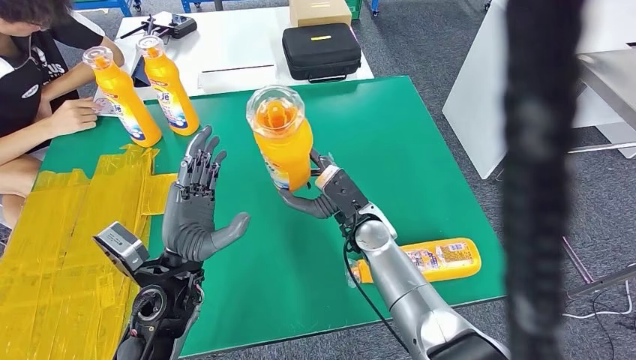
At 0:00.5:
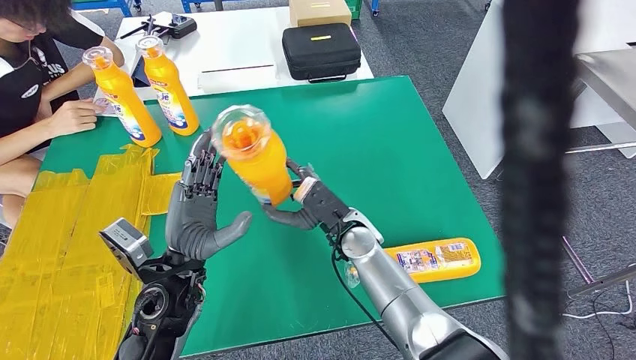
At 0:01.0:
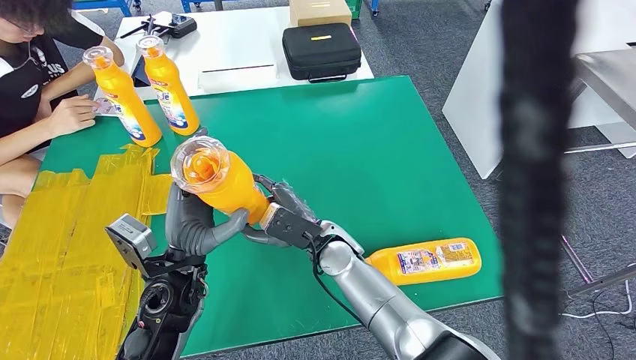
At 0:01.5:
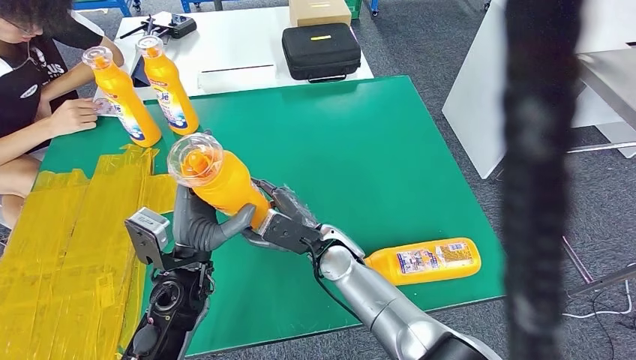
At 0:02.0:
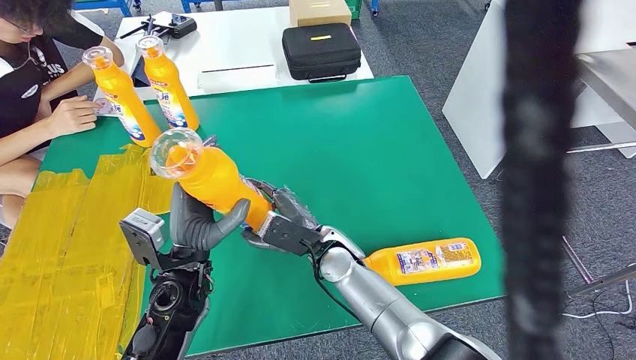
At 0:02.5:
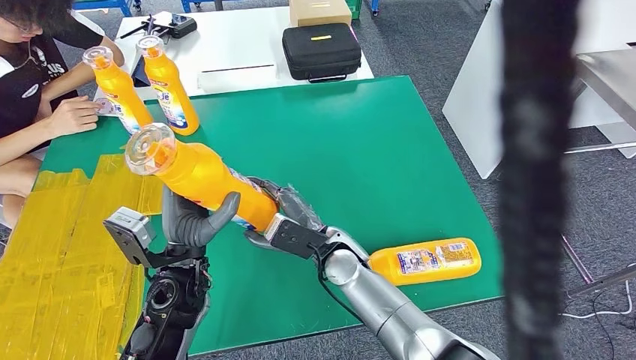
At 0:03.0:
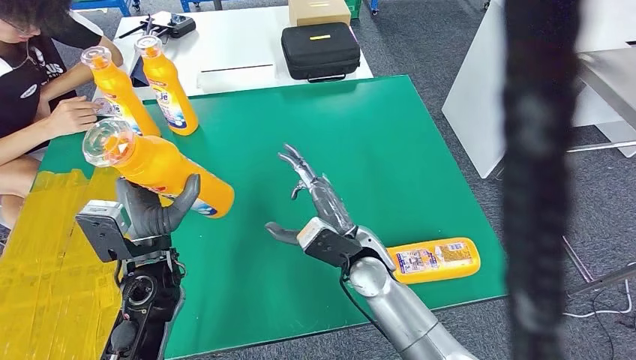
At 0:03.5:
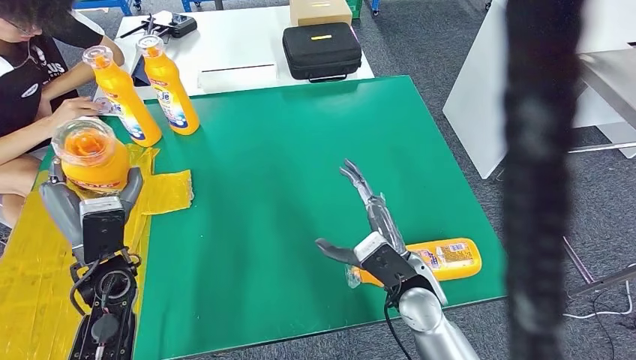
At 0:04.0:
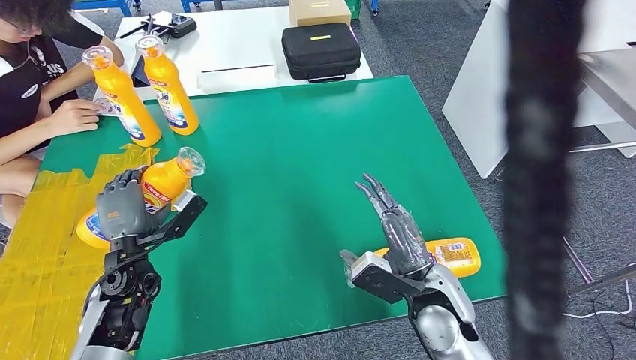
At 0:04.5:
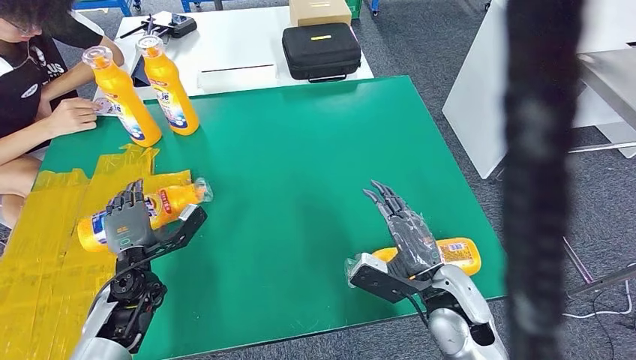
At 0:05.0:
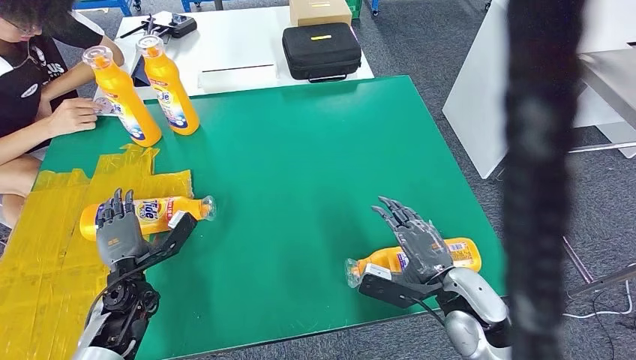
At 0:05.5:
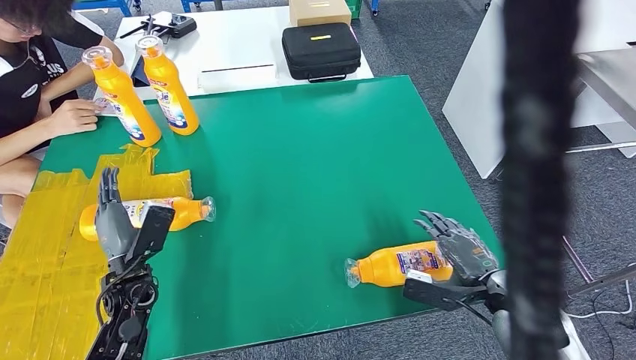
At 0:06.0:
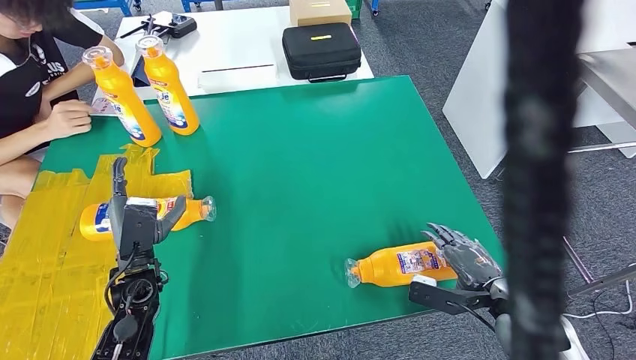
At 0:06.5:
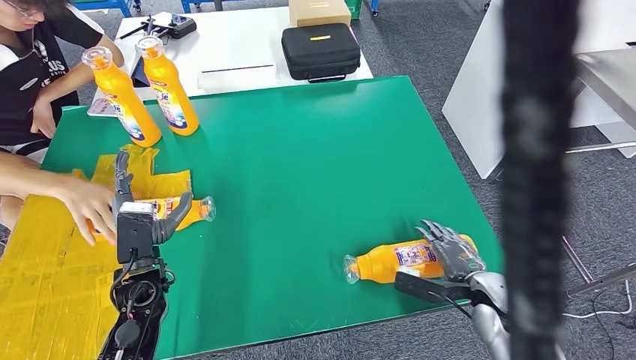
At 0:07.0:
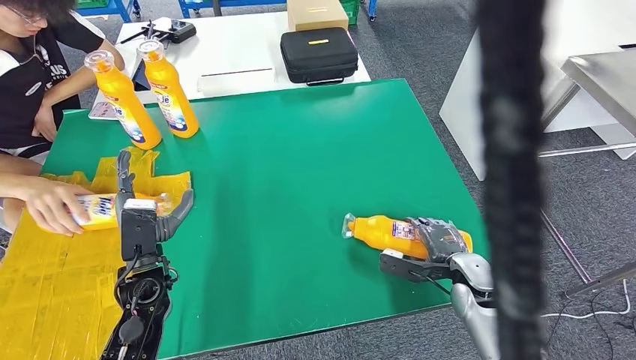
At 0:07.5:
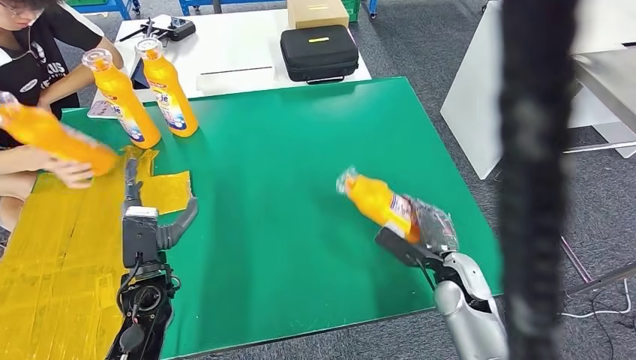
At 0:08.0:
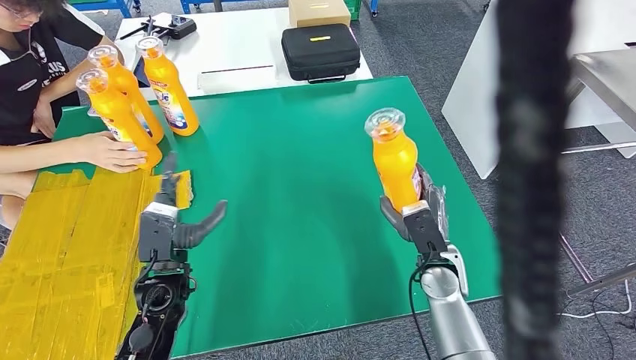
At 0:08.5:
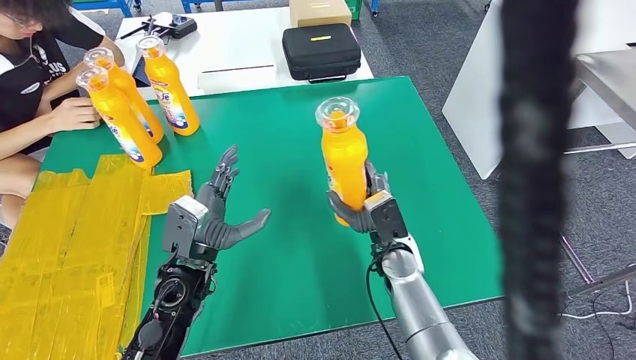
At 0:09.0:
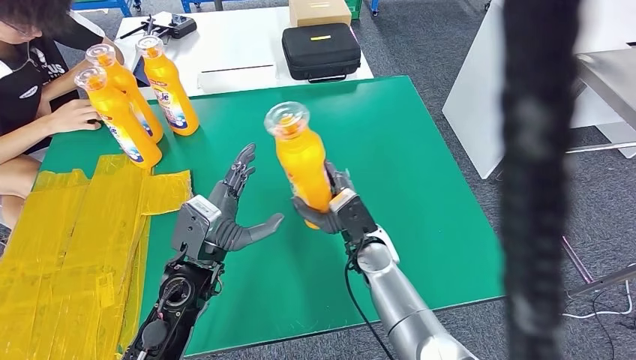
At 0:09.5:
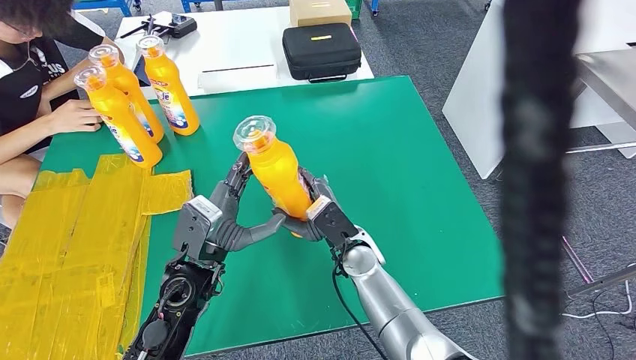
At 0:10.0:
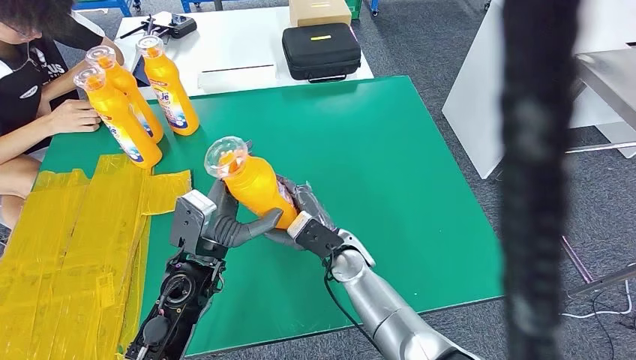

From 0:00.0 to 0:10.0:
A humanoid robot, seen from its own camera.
Step, from 0:00.0 to 0:05.0: Flip the fast-moving consumer goods bottle to the front side.
Step, from 0:05.5 to 0:09.5: Pick up the fast-moving consumer goods bottle from the table.
From 0:00.0 to 0:02.0: The right hand moves to the left, approximately 5 cm.
From 0:02.0 to 0:04.0: The left hand goes some 15 cm to the left and forward. Meanwhile the right hand is displaced to the right and backward by roughly 20 cm.
From 0:04.0 to 0:06.0: The right hand travels to the right by some 15 cm.

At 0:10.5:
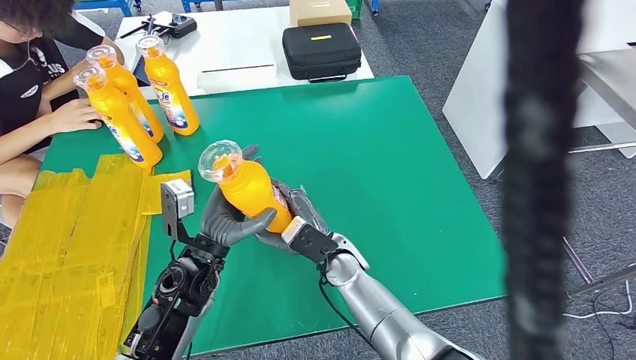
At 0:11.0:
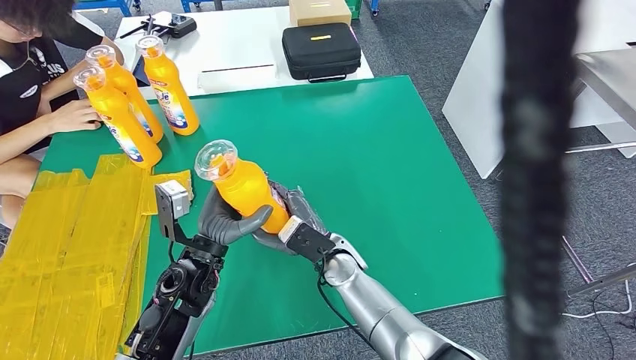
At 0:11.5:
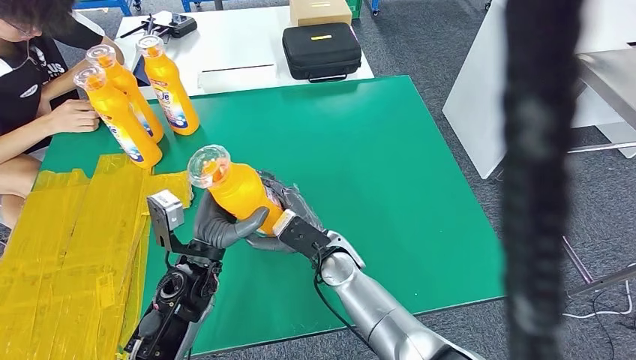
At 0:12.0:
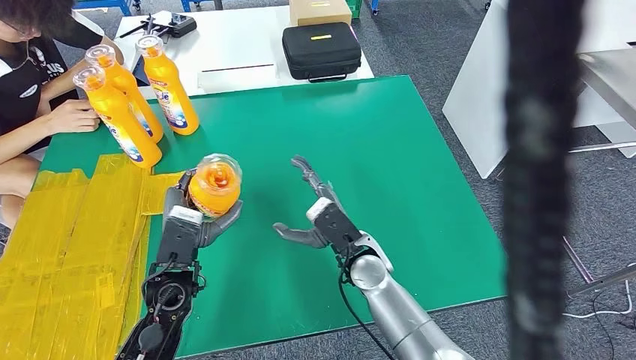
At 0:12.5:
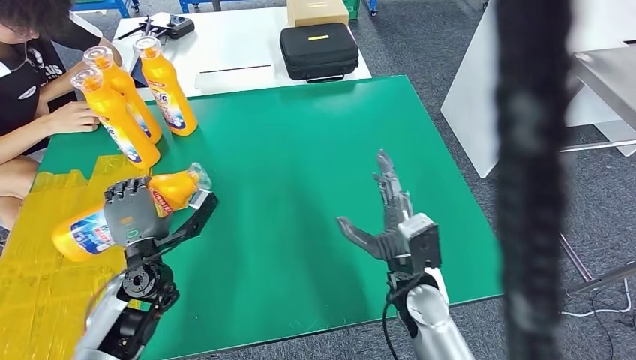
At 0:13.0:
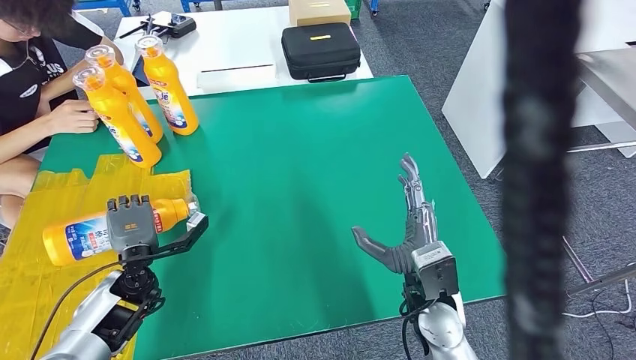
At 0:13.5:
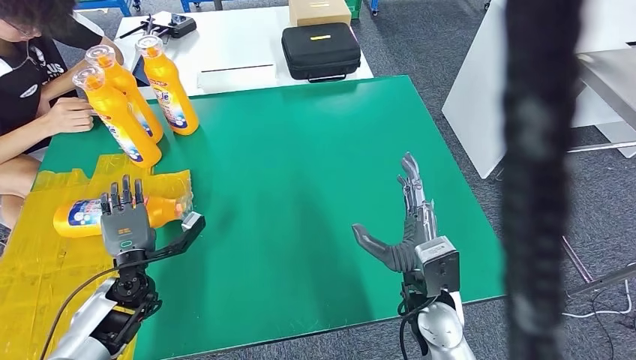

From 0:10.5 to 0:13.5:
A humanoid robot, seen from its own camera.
Step, from 0:10.5 to 0:13.5: Flip the fast-moving consumer goods bottle to the front side.
From 0:12.0 to 0:13.5: The right hand moves backward and to the right, about 10 cm; the left hand is displaced to the left and downward by about 15 cm.

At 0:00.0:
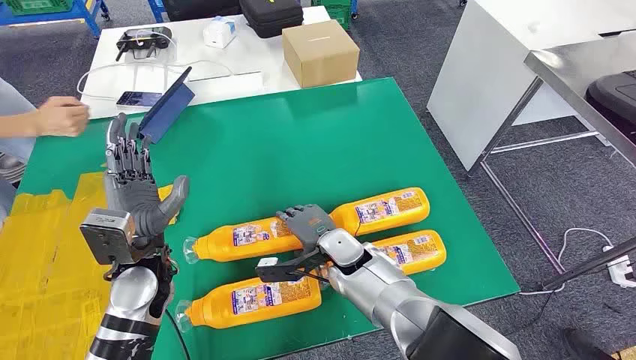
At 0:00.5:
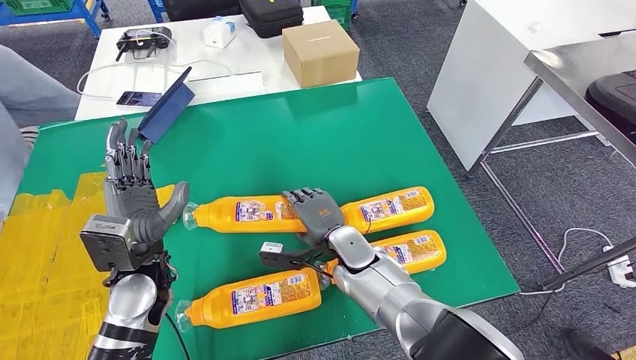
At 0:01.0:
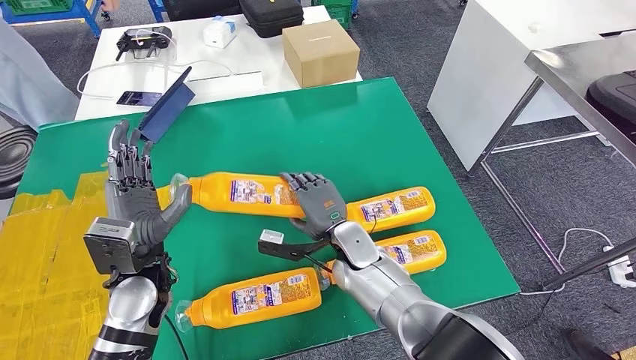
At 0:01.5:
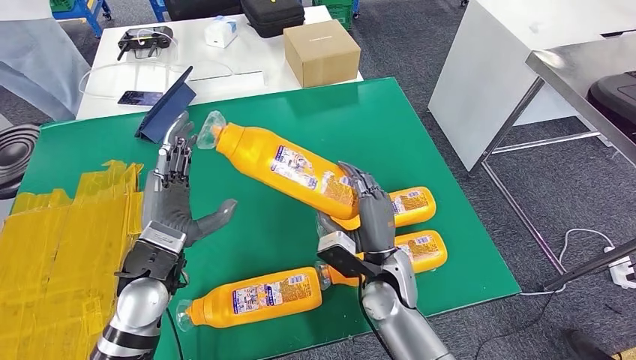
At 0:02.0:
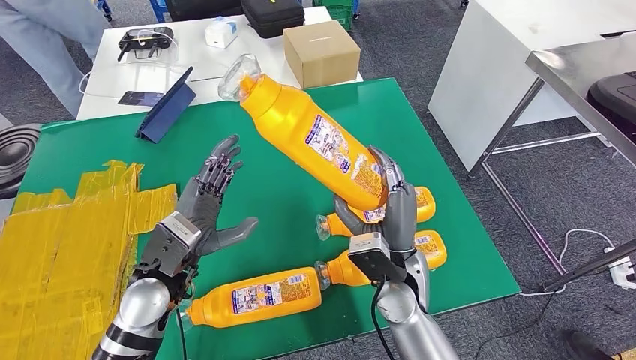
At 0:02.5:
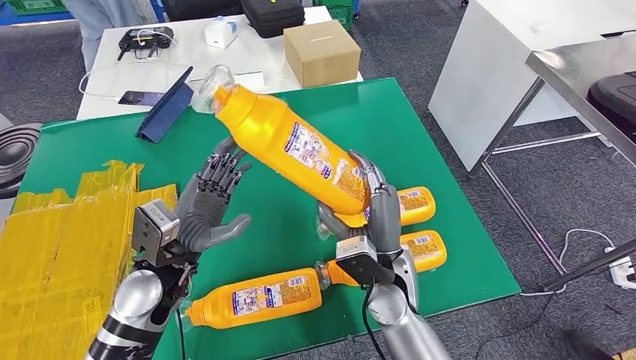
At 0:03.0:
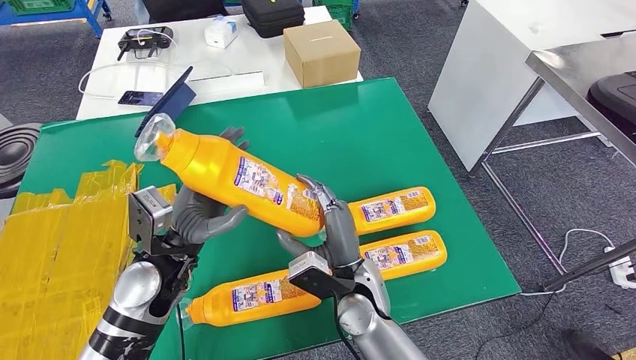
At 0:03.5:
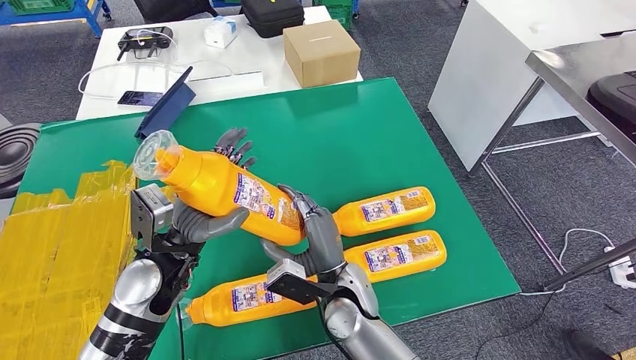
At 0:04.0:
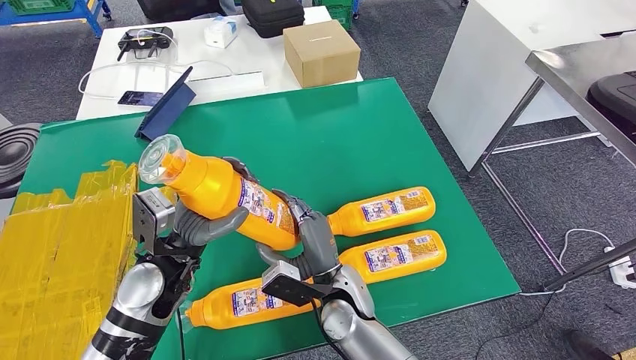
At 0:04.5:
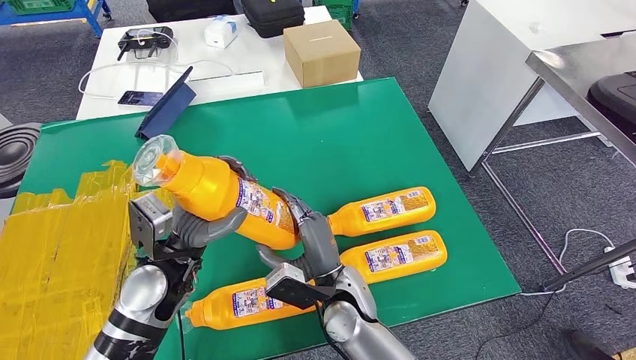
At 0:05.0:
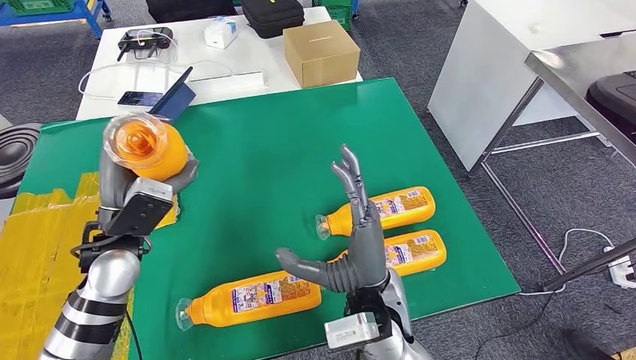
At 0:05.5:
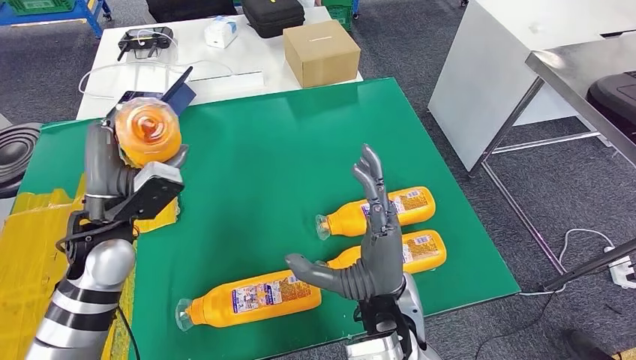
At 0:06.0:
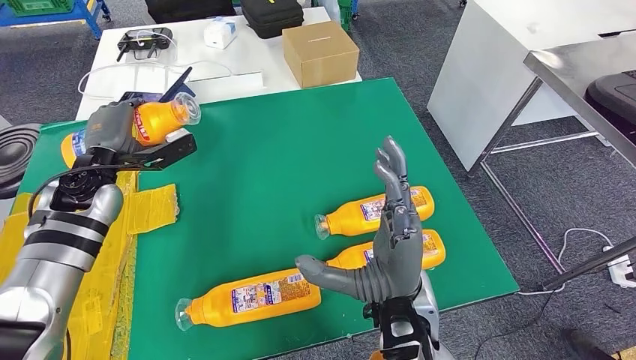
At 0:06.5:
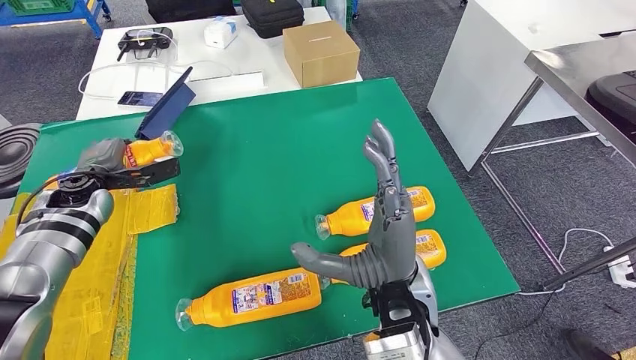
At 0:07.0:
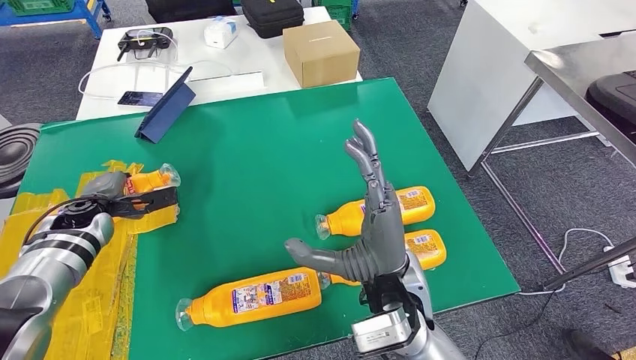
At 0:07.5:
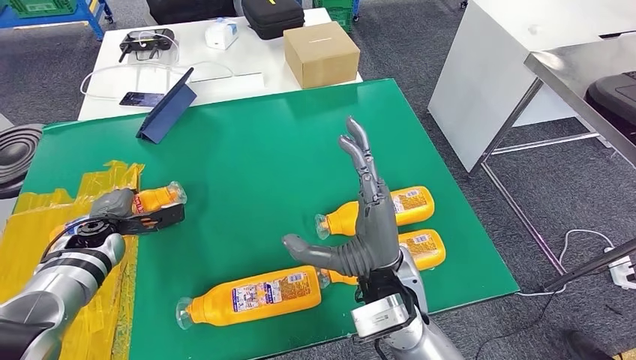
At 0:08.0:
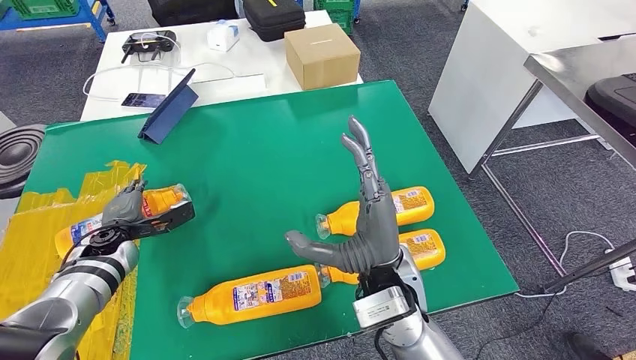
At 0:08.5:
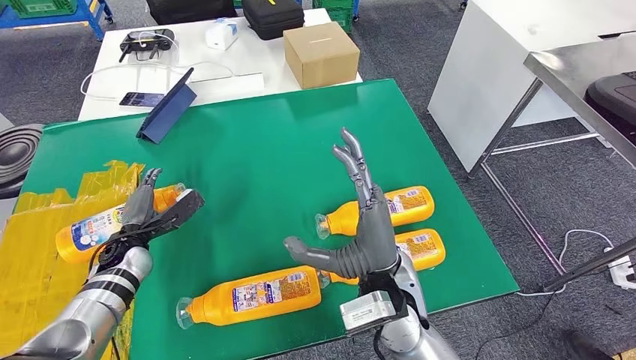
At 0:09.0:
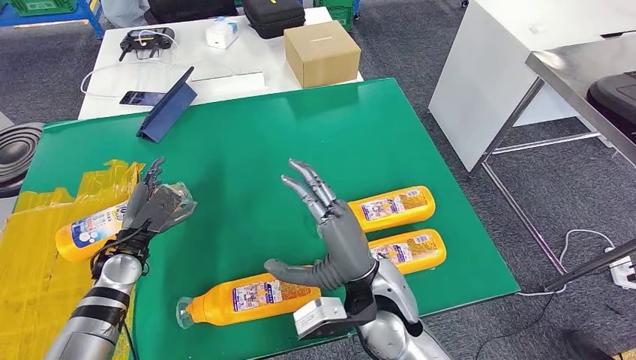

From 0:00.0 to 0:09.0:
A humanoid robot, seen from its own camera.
Step, from 0:00.0 to 0:02.5: Take the fast-moving consumer goods bottle from the table.
Step, from 0:03.0 to 0:09.0: Flip the fast-moving consumer goods bottle to the front side.
From 0:07.0 to 0:09.0: The left hand travels backward and to the right by approximately 10 cm.
